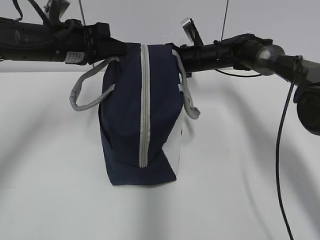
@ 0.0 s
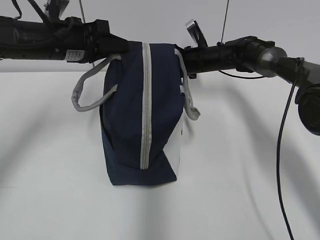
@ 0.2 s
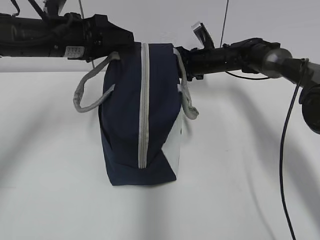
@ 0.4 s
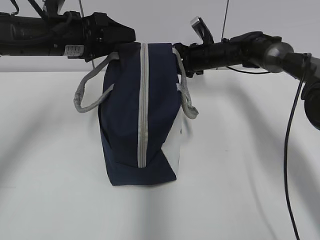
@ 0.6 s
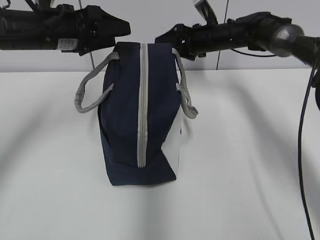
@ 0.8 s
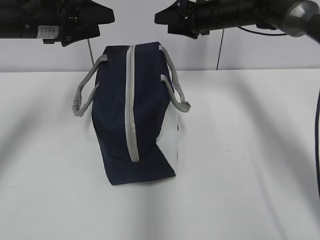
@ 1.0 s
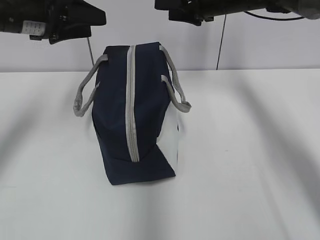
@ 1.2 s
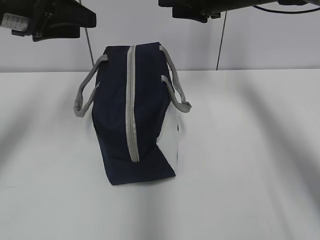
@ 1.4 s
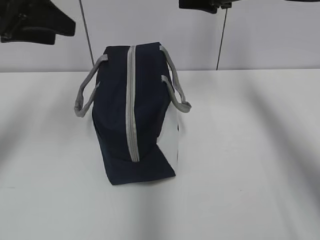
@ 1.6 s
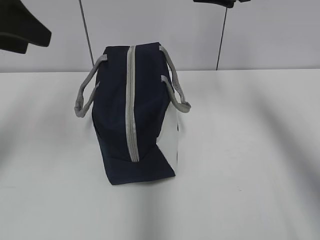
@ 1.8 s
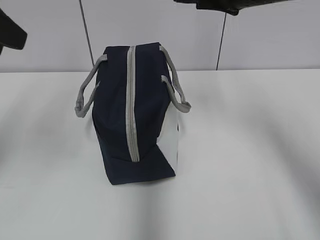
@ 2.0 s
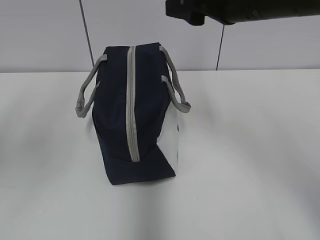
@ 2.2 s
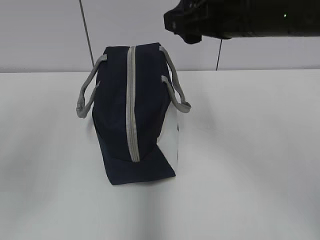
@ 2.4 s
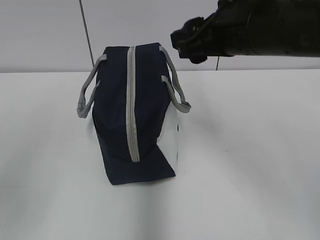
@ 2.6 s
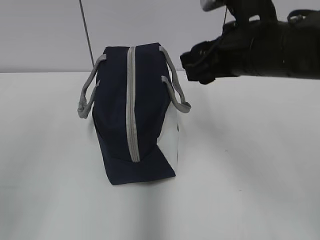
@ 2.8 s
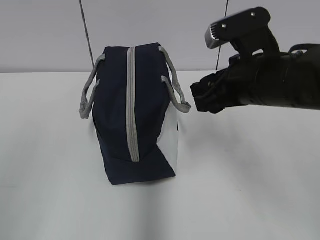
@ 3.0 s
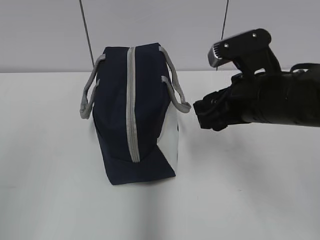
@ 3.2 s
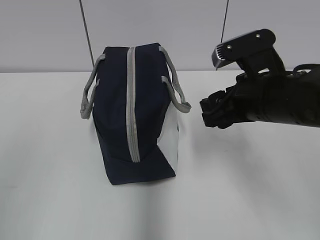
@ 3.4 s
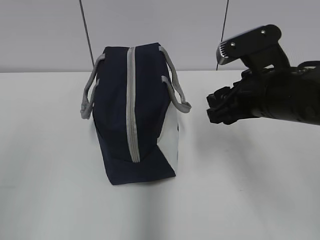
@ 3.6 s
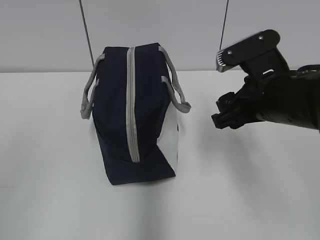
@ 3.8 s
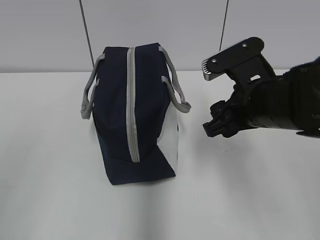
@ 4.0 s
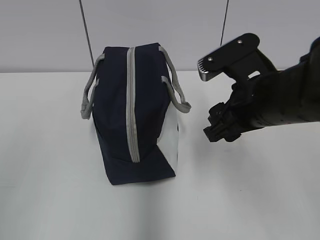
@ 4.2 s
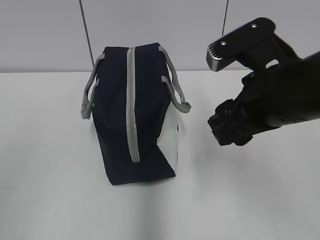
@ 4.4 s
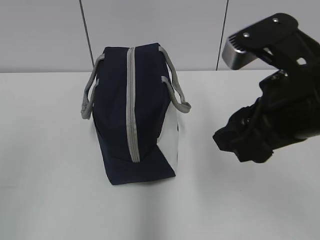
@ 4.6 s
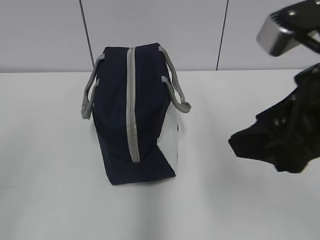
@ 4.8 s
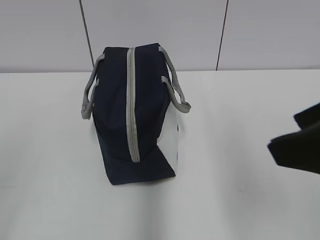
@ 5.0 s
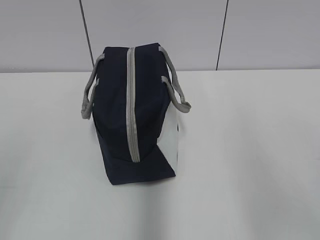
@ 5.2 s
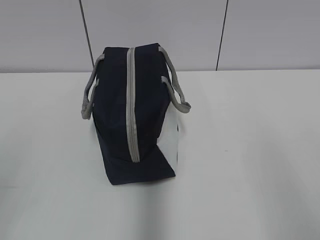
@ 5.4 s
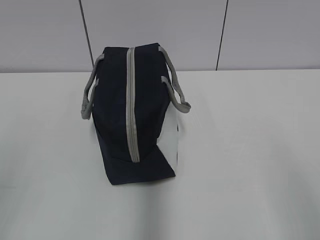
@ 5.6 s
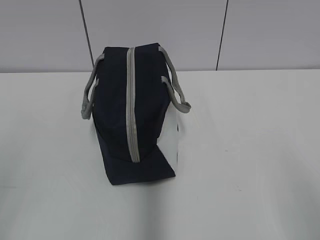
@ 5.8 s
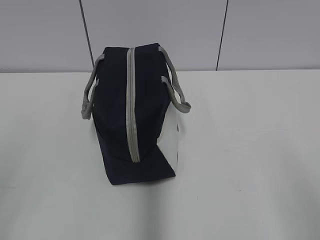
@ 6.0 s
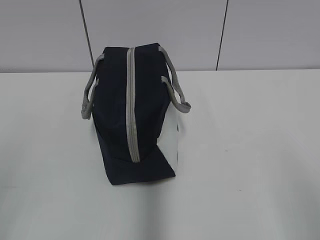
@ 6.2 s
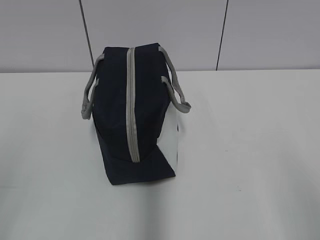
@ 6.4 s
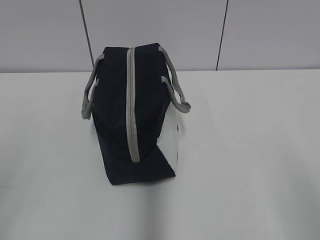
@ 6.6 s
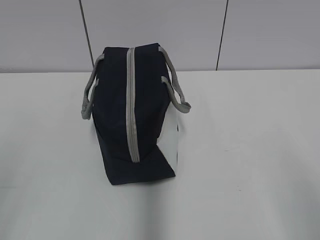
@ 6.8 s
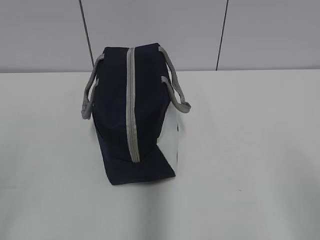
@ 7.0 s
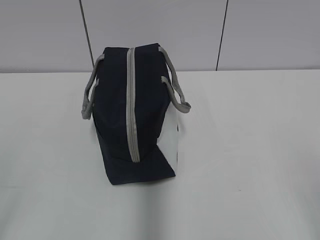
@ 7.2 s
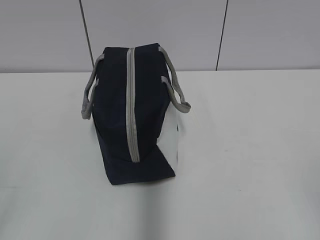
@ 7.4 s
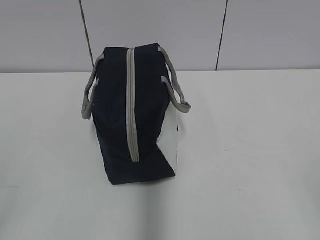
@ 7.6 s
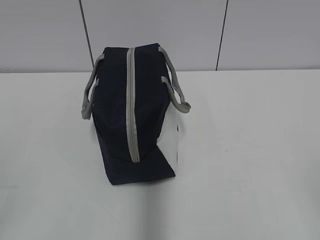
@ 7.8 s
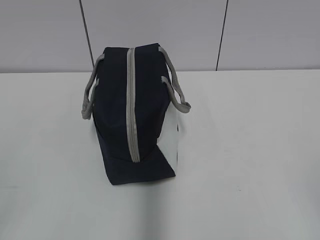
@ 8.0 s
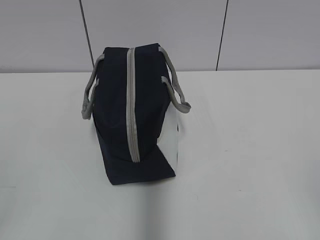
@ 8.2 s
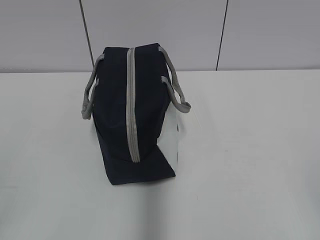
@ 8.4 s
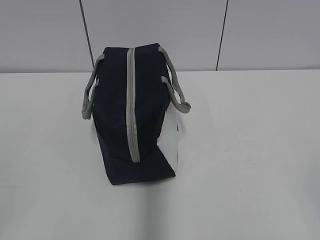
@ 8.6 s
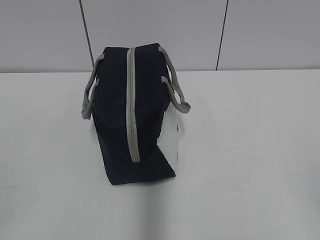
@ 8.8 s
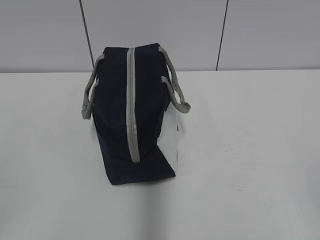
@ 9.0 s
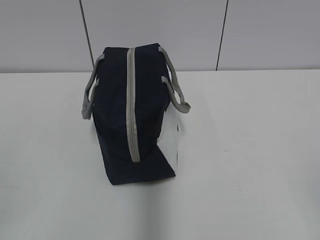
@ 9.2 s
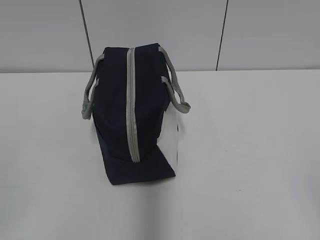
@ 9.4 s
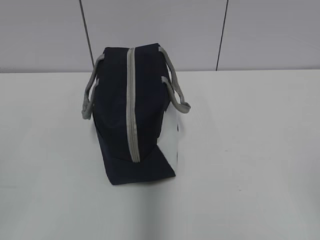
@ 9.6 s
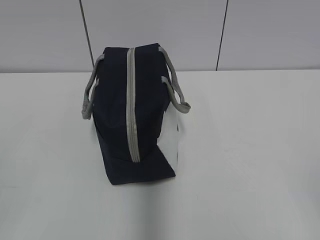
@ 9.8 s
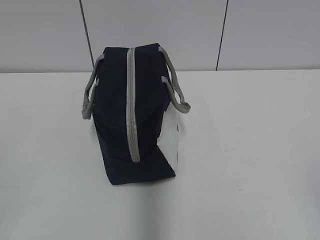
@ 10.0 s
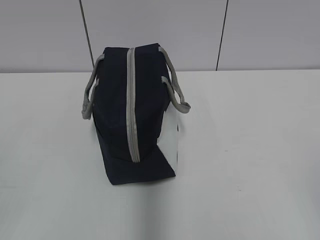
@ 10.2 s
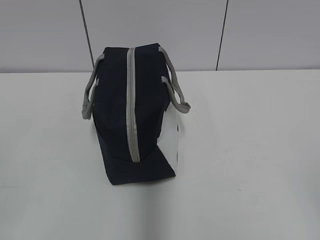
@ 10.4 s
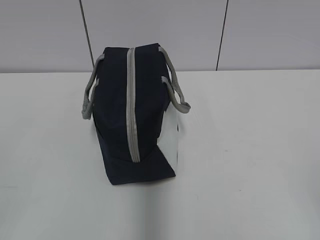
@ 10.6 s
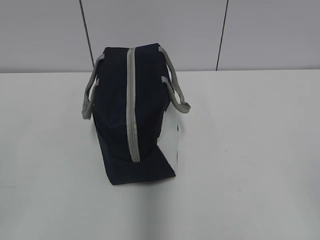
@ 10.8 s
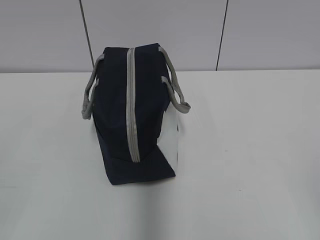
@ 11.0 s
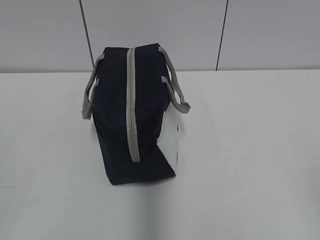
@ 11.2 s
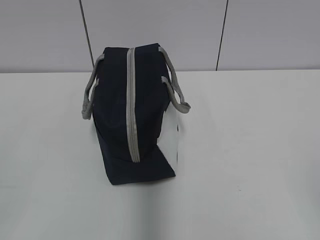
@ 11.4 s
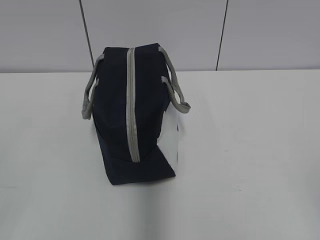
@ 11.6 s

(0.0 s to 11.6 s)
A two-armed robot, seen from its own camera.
0.0 s - 1.4 s: The right gripper goes roughly 15 cm upward, and opens up, while the left gripper moves upward and backward, about 10 cm, and opens.
1.4 s - 2.8 s: Both grippers travel together backward, roughly 25 cm.
2.8 s - 4.4 s: The right gripper travels backward by some 5 cm.
4.4 s - 5.8 s: The right gripper shifts roughly 25 cm backward and to the right.
10.2 s - 11.6 s: Both grippers stay put.

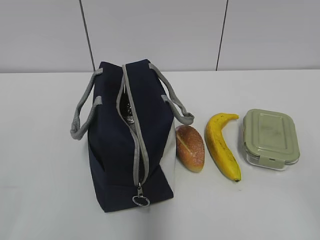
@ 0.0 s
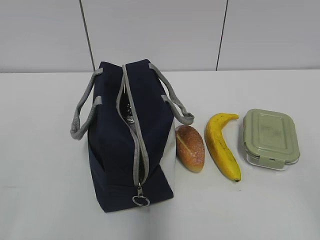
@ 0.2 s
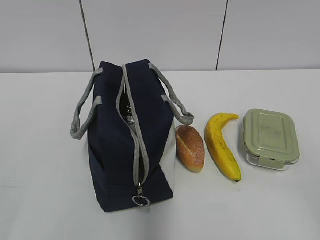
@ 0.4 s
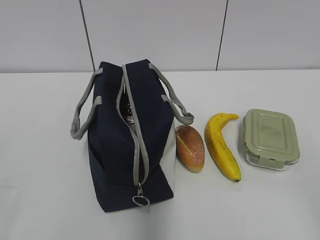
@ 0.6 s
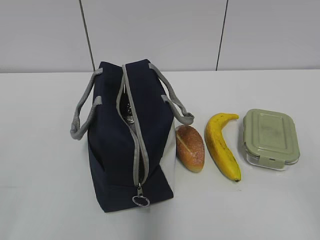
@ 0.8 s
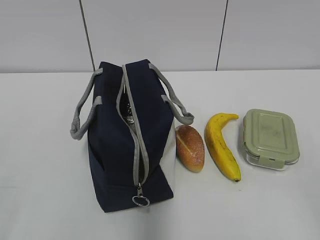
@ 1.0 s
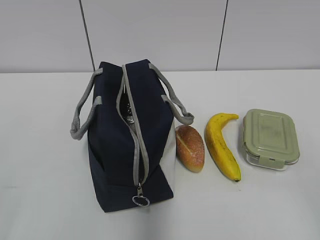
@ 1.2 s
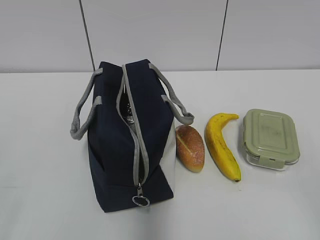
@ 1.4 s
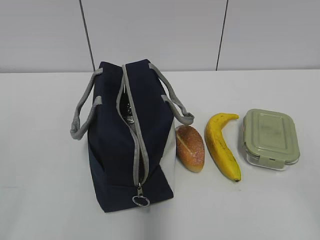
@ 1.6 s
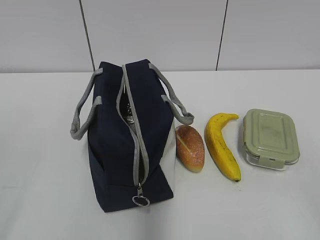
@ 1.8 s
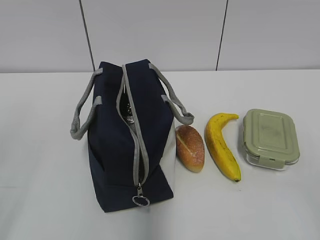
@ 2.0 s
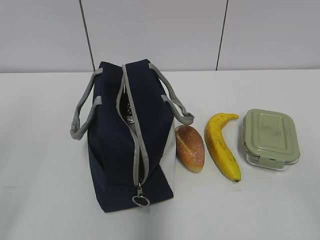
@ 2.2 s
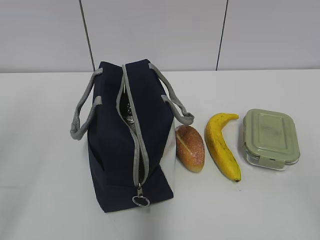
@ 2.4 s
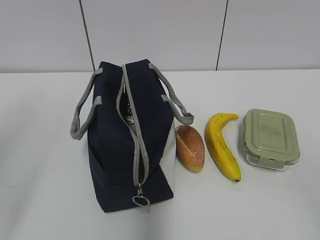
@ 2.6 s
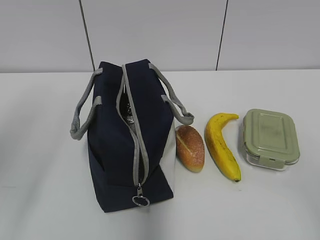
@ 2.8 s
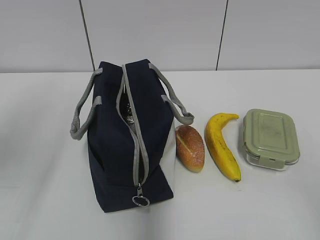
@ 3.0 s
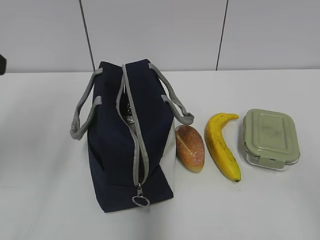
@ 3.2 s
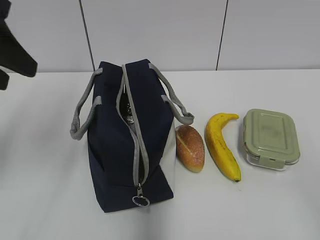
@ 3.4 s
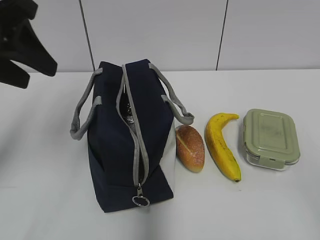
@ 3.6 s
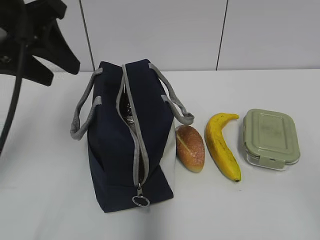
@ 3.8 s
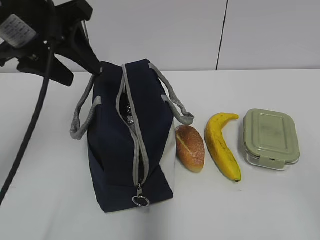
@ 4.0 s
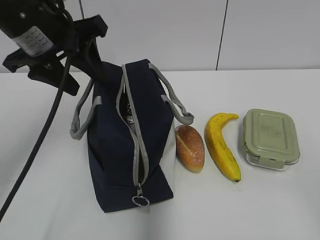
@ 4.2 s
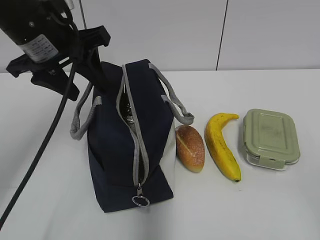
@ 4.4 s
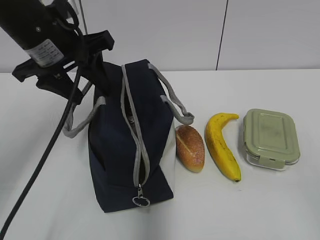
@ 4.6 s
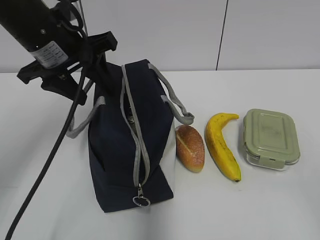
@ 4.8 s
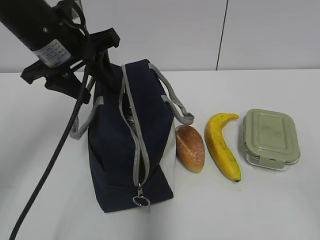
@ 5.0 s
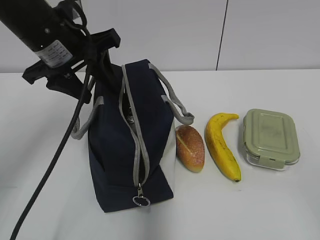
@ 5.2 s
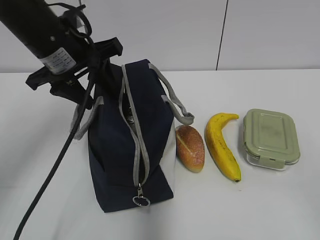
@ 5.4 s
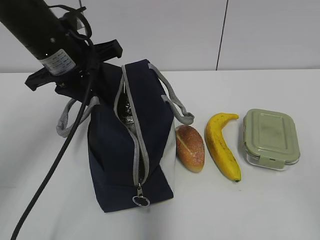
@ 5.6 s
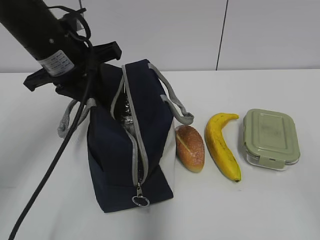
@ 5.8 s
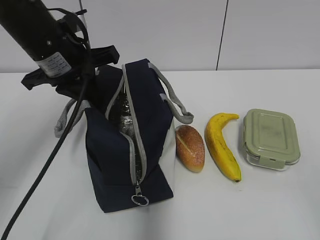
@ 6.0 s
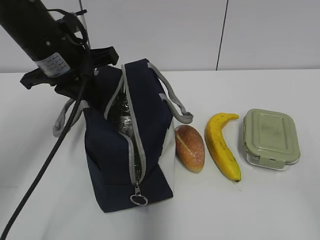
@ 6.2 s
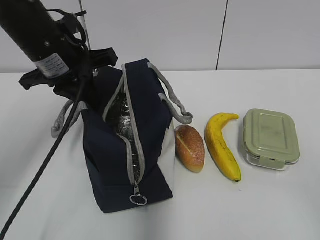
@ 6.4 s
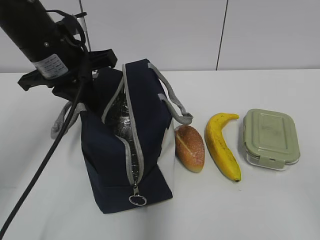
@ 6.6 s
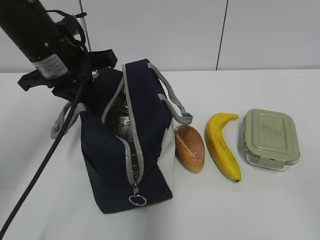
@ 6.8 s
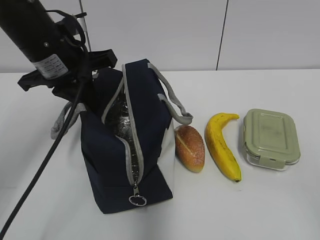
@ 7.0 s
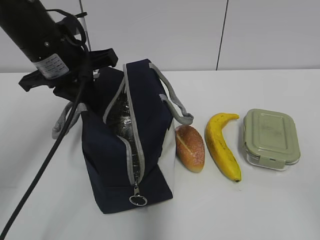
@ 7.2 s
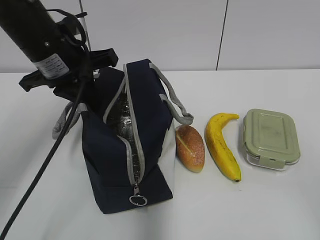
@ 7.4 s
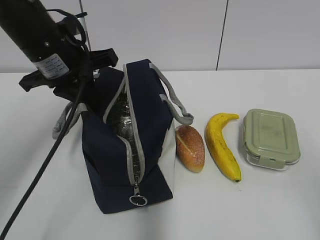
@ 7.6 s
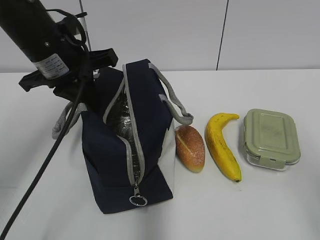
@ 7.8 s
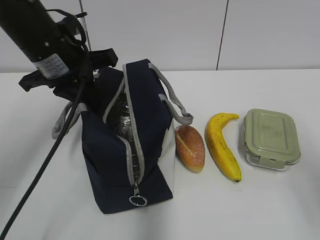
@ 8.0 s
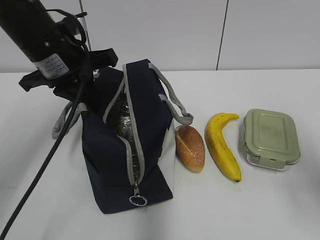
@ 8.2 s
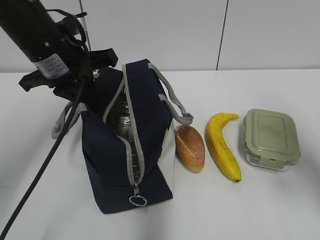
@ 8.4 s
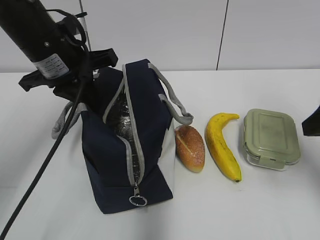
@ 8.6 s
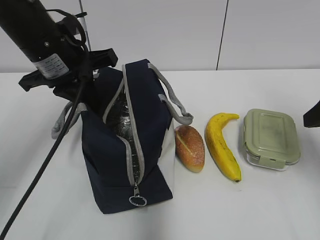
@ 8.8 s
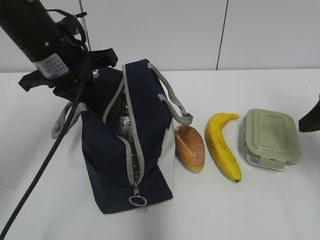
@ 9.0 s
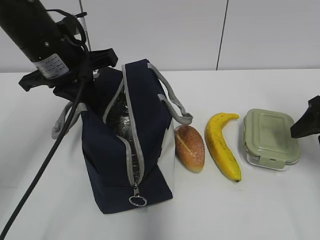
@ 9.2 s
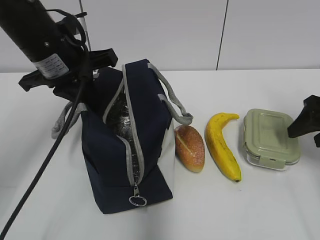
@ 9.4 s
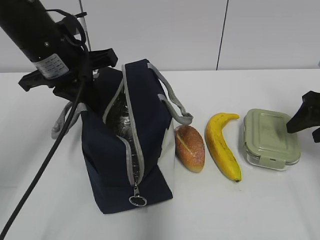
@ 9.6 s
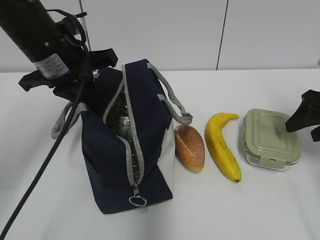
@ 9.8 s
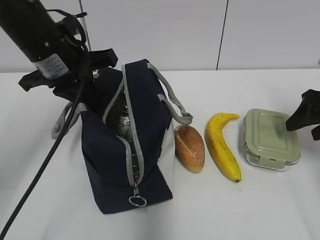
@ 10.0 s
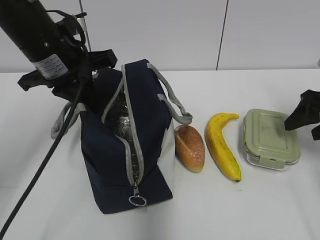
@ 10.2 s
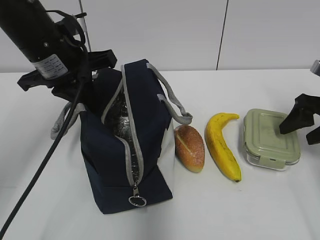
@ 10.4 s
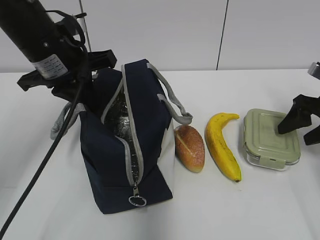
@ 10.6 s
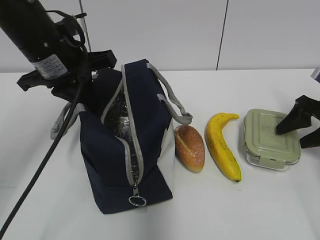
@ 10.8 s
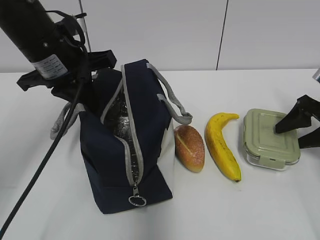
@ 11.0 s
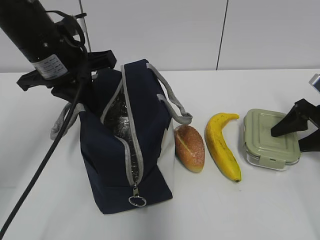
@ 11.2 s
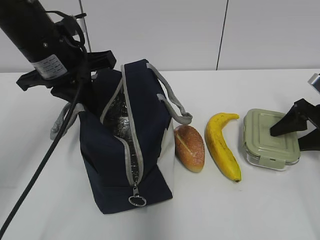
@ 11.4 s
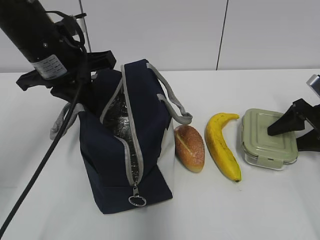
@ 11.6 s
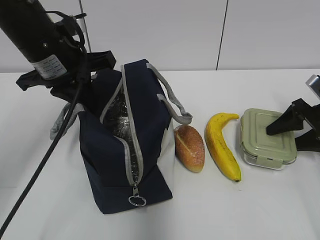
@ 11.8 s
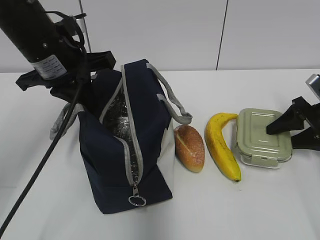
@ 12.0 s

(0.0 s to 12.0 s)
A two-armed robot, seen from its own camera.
1.6 s - 3.0 s: The left gripper moves forward and upward, some 20 cm.
3.0 s - 4.4 s: The left gripper goes approximately 20 cm forward and to the right.
4.4 s - 6.0 s: The left gripper closes.
6.0 s - 7.6 s: There are only small adjustments of the grippers.
7.6 s - 9.0 s: The right gripper travels forward by about 25 cm.
9.0 s - 10.4 s: The right gripper is displaced forward and downward by roughly 10 cm.
10.4 s - 12.0 s: The right gripper moves downward, approximately 5 cm.
